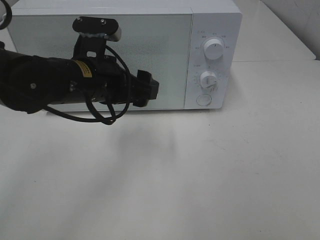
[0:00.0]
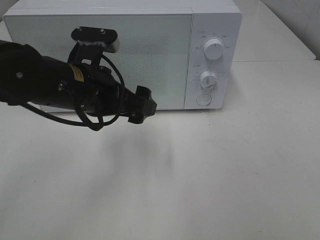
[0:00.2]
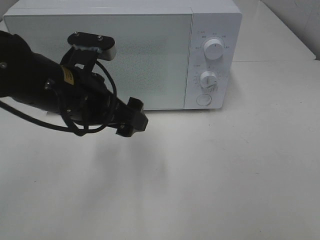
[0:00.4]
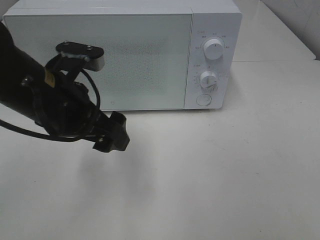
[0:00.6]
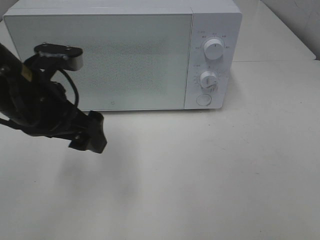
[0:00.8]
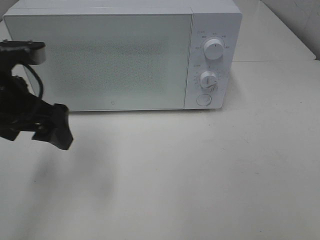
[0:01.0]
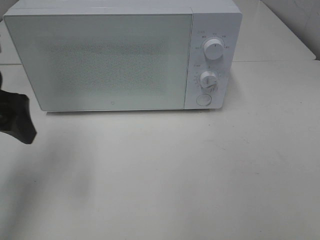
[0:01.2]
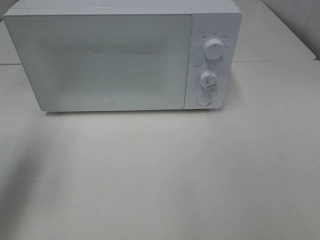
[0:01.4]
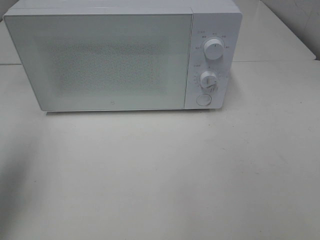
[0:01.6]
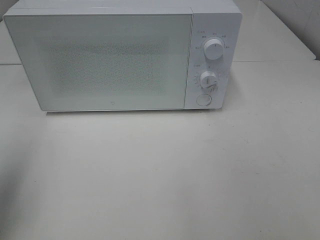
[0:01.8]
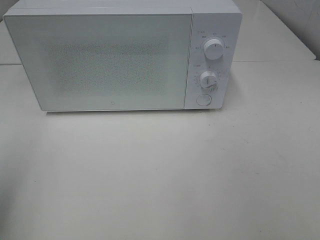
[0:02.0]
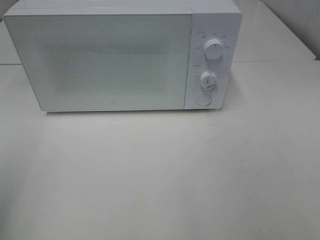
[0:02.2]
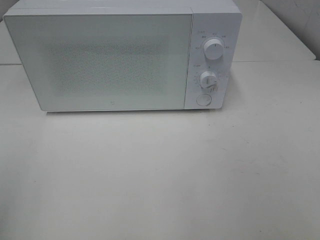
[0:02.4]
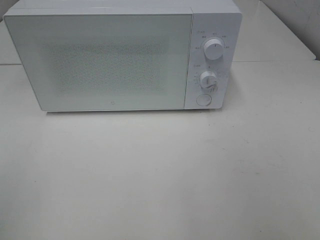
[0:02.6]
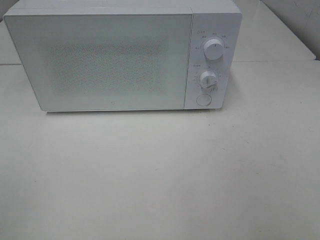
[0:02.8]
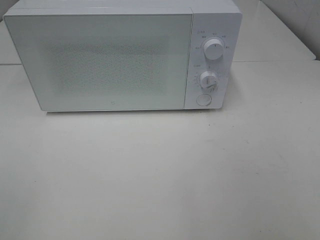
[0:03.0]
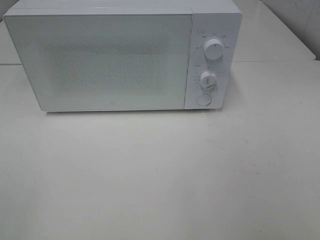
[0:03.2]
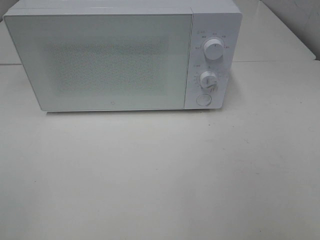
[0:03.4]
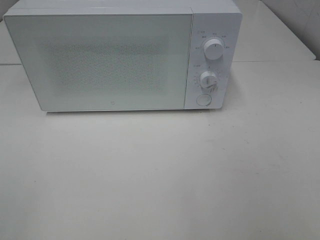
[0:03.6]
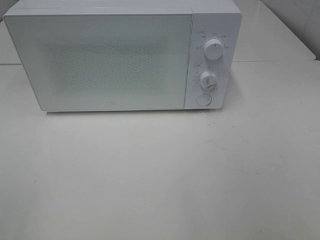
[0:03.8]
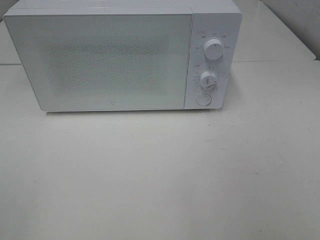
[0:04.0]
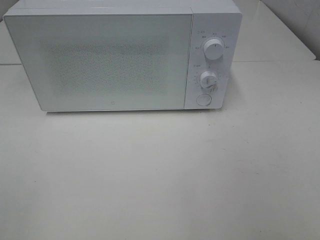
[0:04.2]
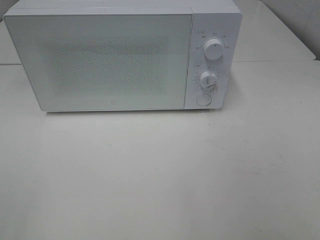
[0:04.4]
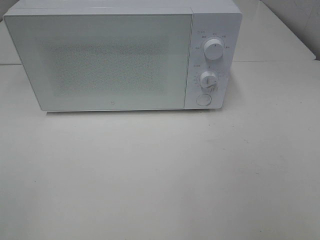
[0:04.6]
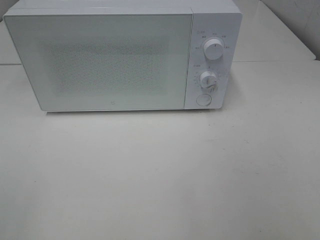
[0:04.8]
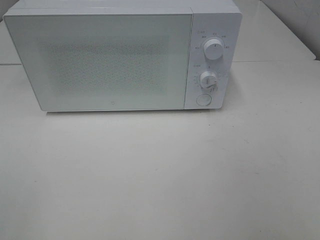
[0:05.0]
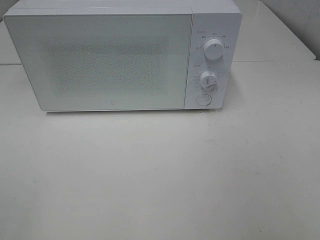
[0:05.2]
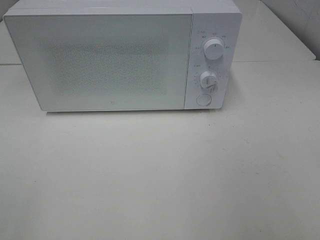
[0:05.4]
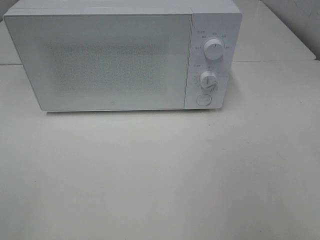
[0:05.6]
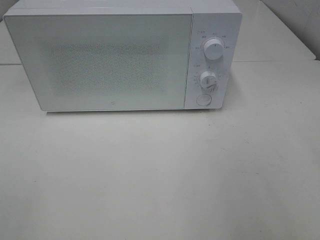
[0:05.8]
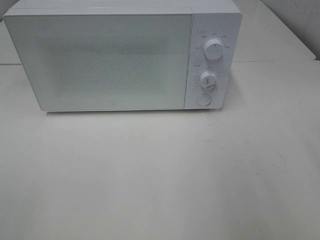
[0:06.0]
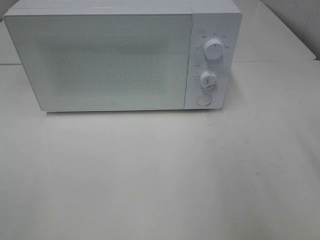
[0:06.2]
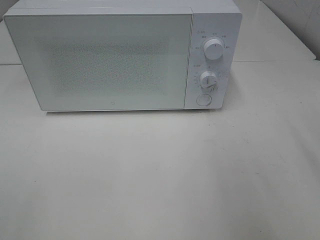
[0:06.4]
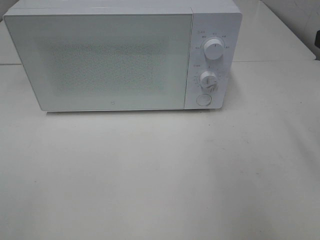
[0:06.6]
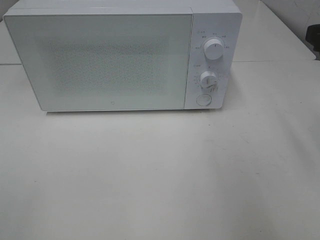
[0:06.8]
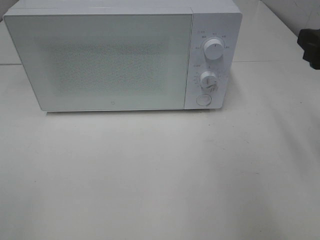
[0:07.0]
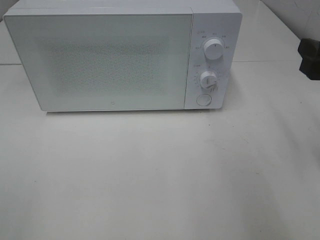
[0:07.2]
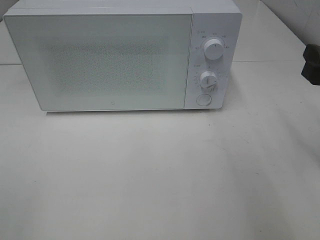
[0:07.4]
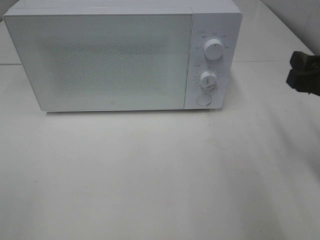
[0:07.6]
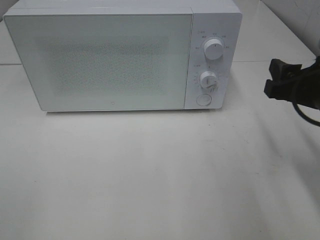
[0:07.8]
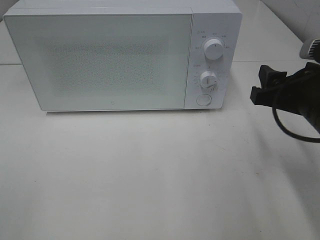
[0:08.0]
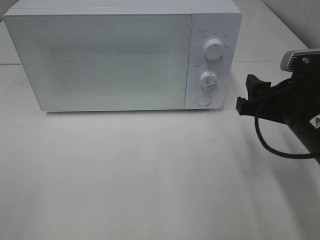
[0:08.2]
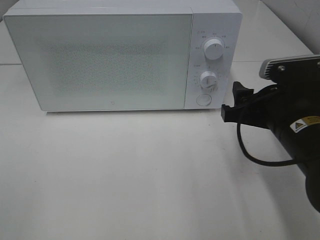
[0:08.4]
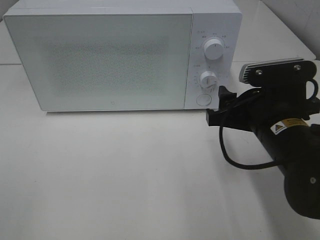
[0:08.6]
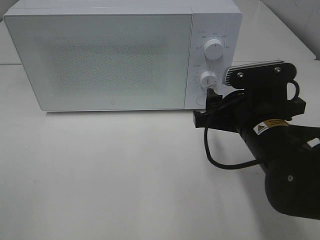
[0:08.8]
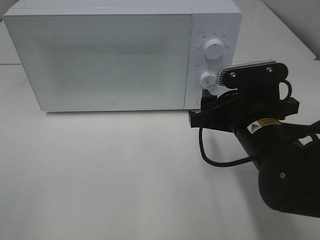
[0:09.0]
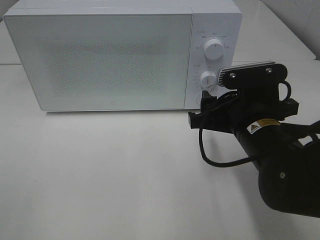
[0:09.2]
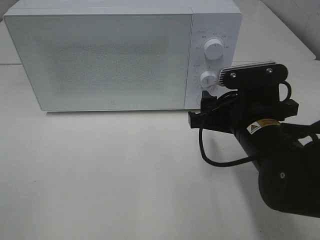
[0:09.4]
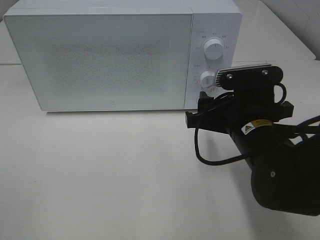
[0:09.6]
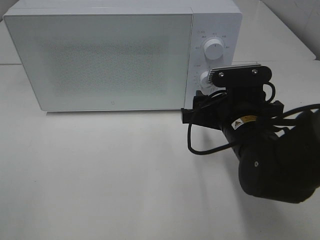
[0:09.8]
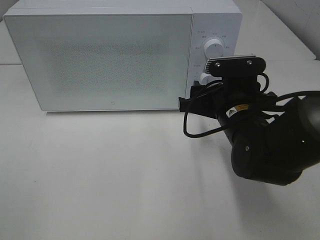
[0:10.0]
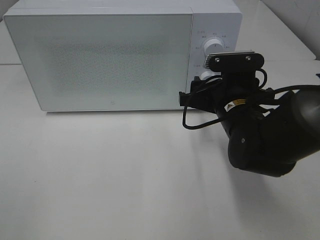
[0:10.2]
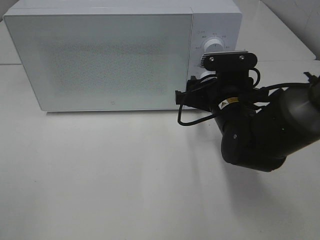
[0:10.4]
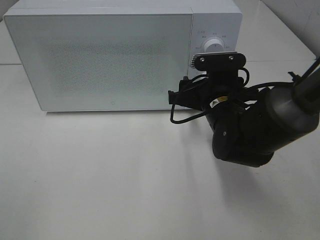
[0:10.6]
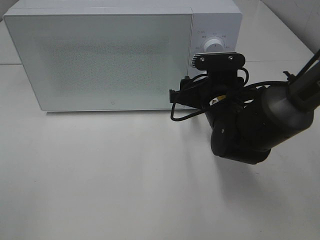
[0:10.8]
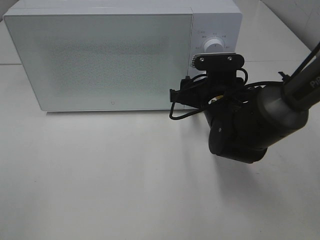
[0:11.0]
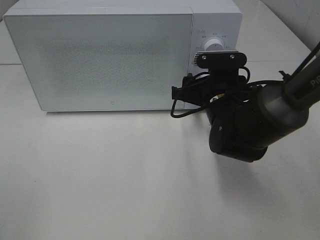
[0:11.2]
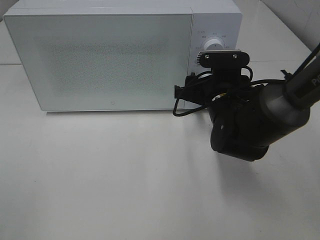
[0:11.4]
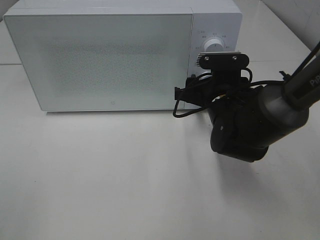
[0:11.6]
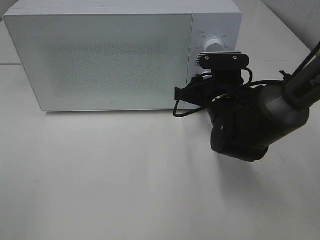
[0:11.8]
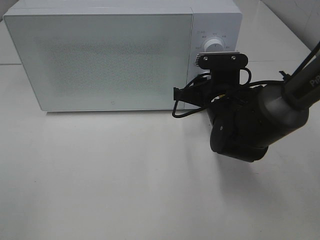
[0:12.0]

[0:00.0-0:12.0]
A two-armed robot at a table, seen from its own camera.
Task of the whole recording: Heat Sandwich.
0:00.0 to 0:01.6: The left gripper moves to the left and upward, about 25 cm.
0:01.6 to 0:03.0: The left gripper is displaced backward by approximately 20 cm.
0:03.0 to 0:04.4: Both grippers stay put.
0:06.0 to 0:07.6: The right gripper heads downward and forward, covering roughly 15 cm.
0:07.6 to 0:09.0: The right gripper is displaced to the left and downward by roughly 15 cm.
0:09.0 to 0:10.4: The right gripper shifts approximately 5 cm forward.
0:10.4 to 0:12.0: There are only small adjustments of the grippers.

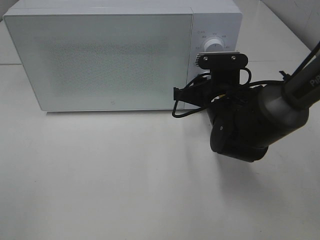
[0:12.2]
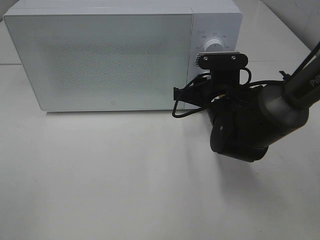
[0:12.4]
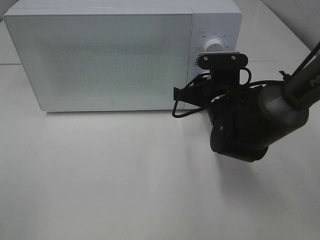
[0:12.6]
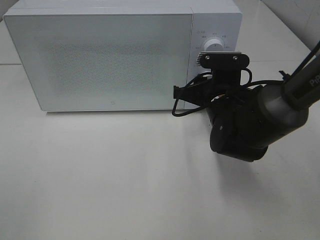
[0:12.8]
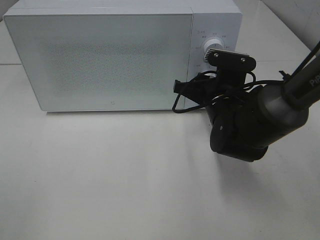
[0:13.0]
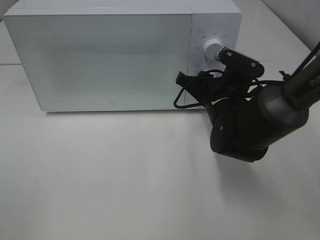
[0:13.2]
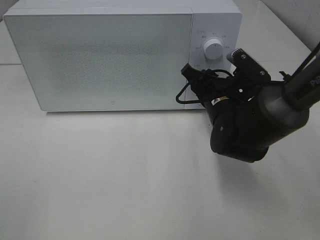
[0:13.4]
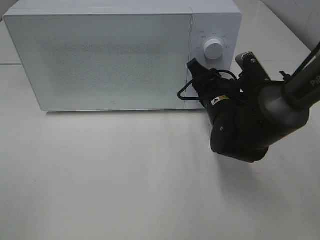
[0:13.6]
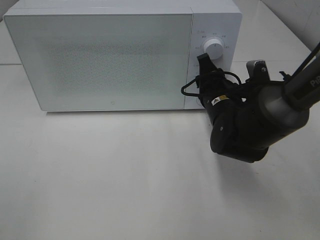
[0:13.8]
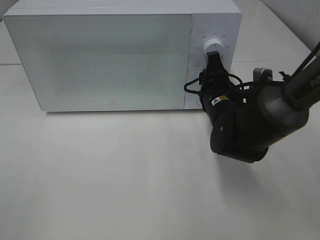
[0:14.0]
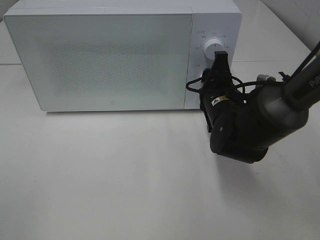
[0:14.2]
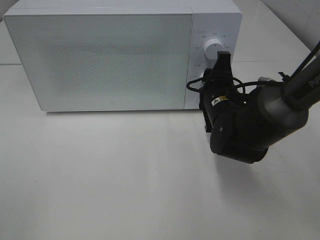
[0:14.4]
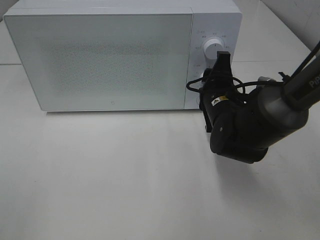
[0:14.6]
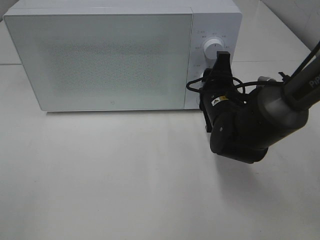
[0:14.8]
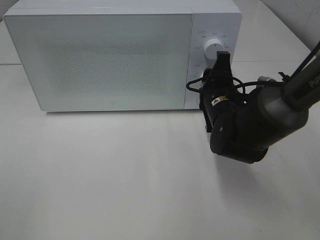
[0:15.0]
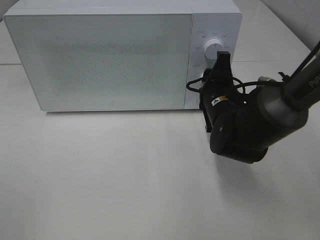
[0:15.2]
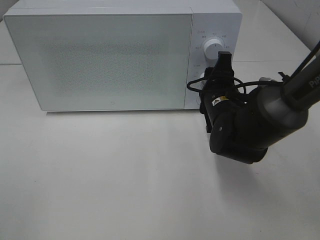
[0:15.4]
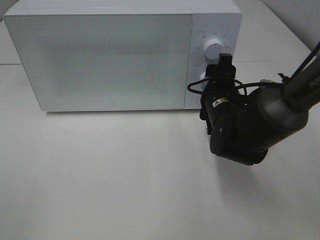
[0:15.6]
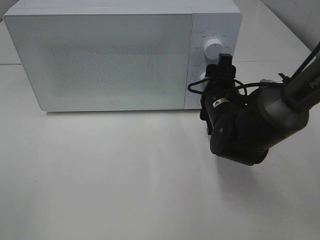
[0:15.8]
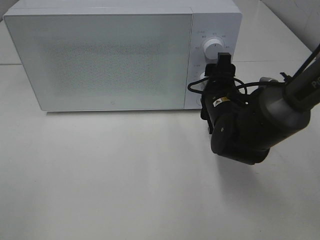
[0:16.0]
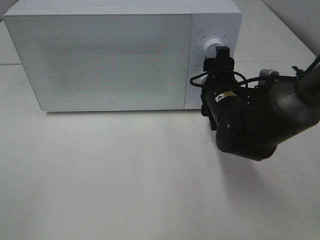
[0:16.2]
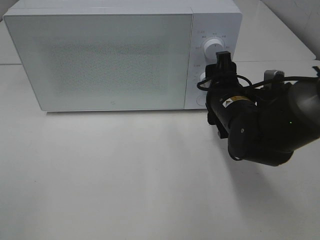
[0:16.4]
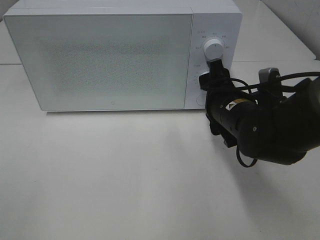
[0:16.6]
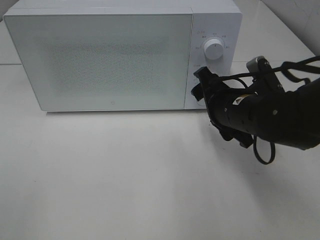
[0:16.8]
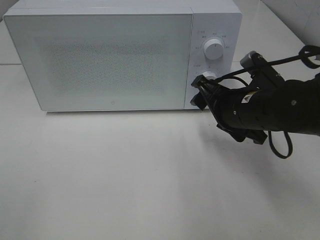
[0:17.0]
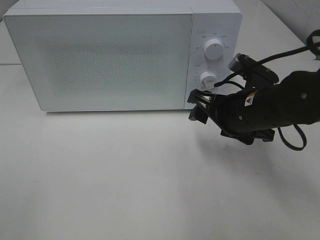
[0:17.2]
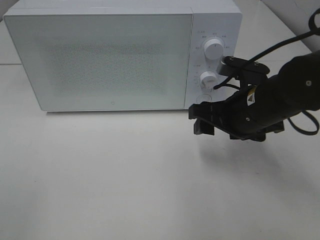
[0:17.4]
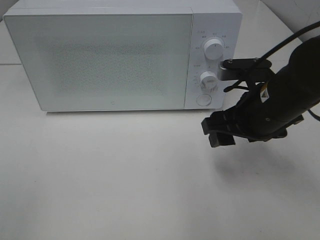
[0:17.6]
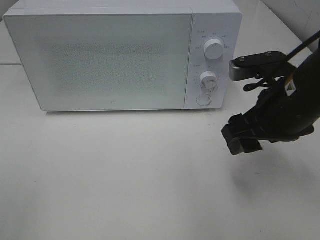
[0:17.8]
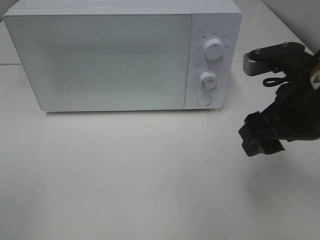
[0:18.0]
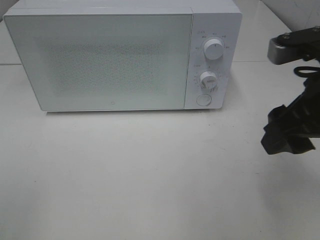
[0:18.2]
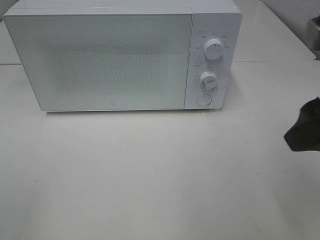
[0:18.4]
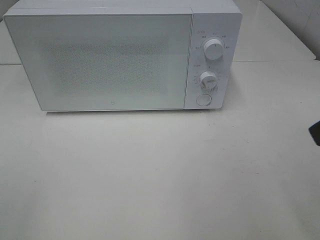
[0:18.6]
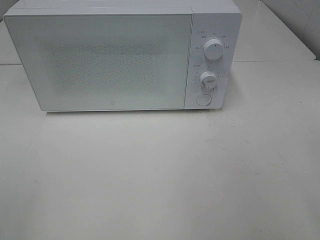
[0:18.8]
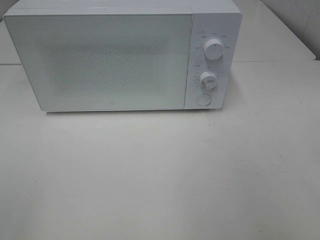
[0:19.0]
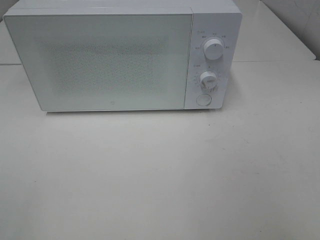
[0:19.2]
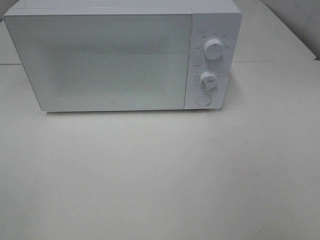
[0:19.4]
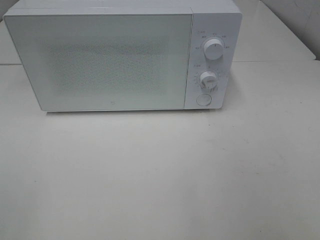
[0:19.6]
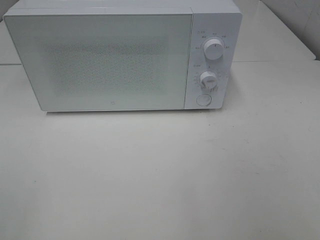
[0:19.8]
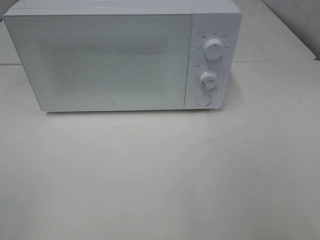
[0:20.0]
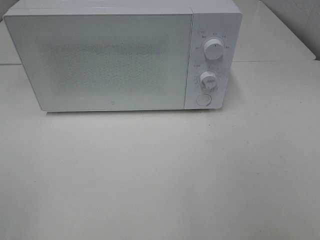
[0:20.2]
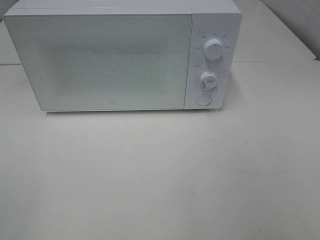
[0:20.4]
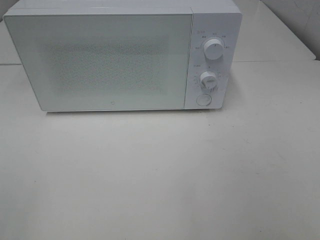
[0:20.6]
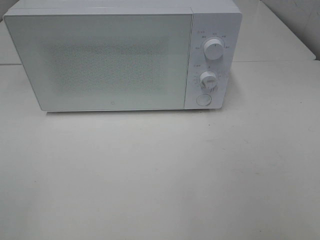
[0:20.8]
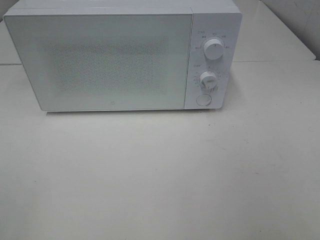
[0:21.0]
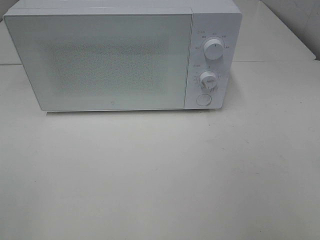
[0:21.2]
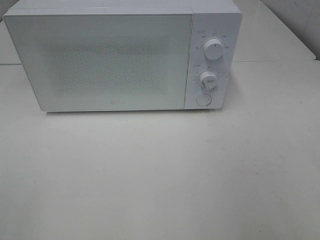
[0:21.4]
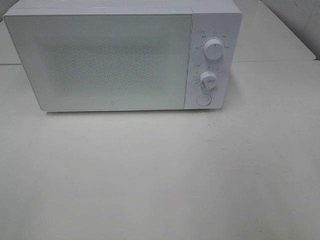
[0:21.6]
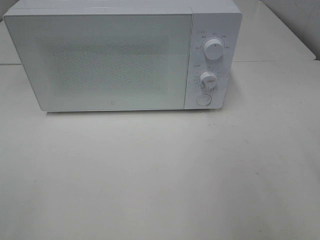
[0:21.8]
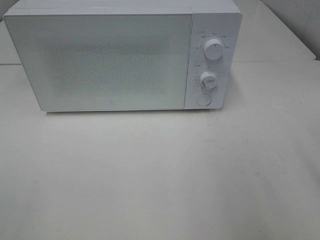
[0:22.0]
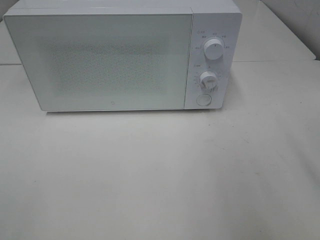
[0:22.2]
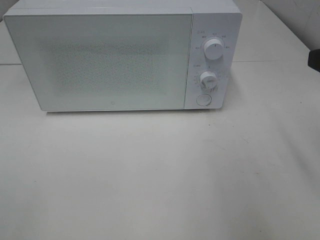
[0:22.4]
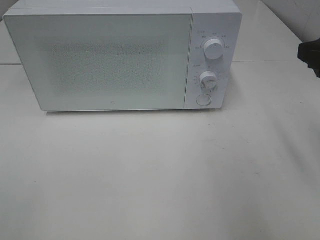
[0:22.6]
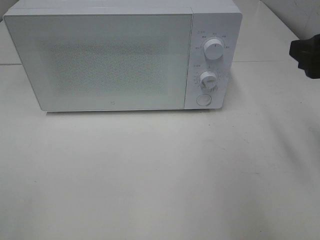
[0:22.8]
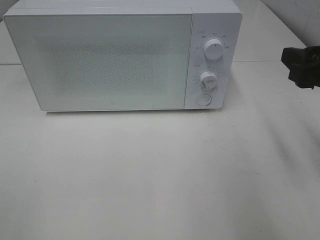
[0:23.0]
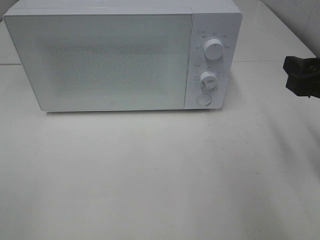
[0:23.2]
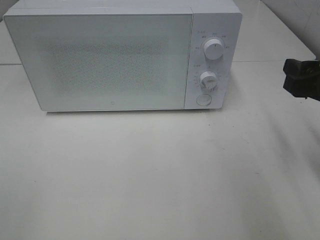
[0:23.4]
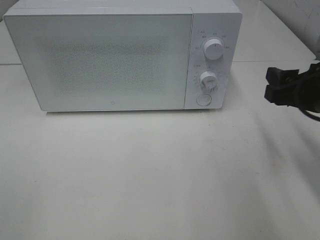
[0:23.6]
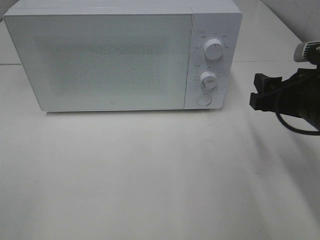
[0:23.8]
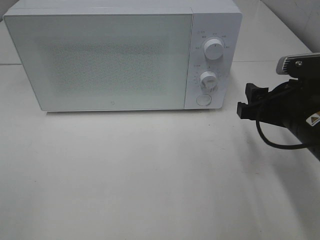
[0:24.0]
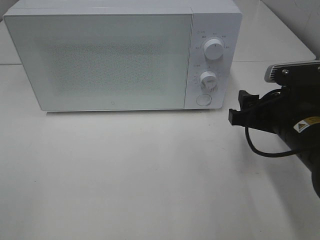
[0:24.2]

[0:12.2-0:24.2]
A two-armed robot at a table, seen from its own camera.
Task of the whole recording: Heat Sandwich.
Step, 0:12.2 to 0:16.8: Right hand: twist timer button.
0:16.6 to 0:18.2: The right gripper travels upward, backward and to the right by approximately 20 cm.
0:18.2 to 0:19.8: The right gripper travels backward and to the right by some 20 cm.
0:21.2 to 0:22.6: The right gripper is displaced forward by about 15 cm.
0:22.6 to 0:24.2: The right gripper shifts about 15 cm downward and to the left.
